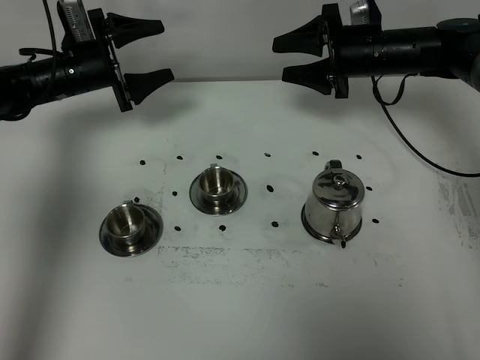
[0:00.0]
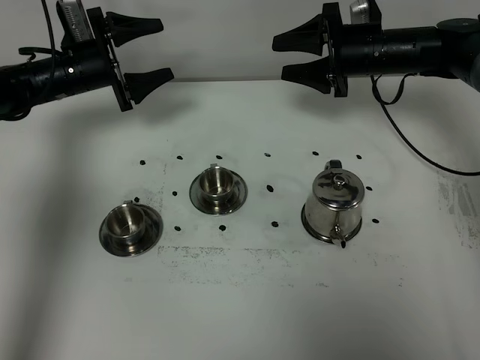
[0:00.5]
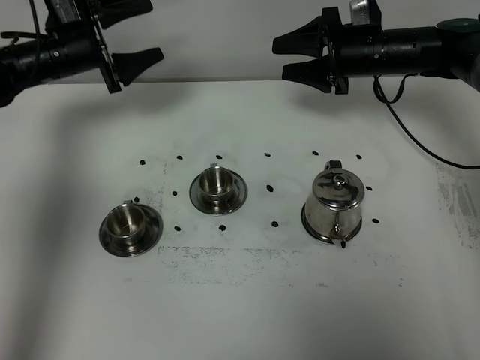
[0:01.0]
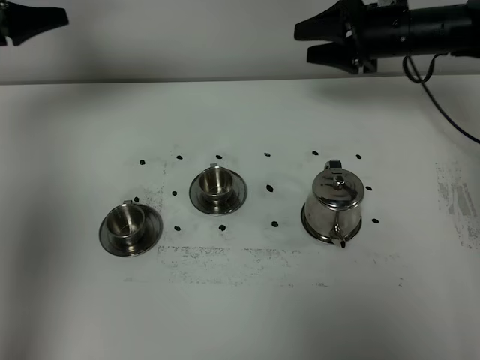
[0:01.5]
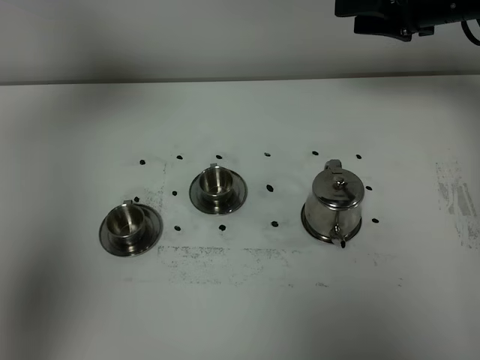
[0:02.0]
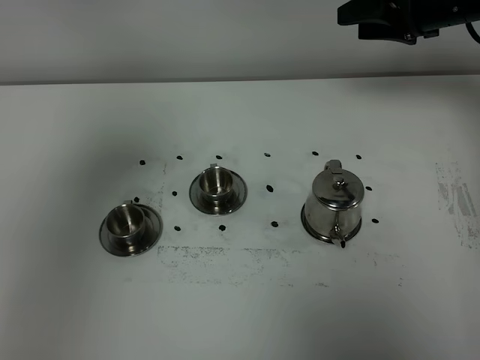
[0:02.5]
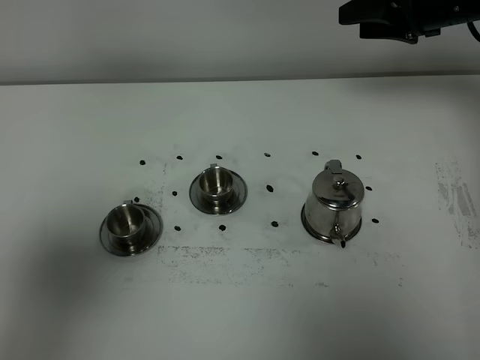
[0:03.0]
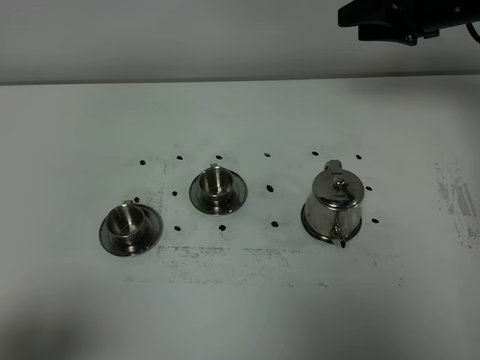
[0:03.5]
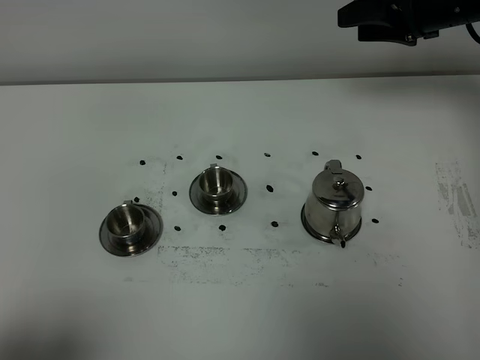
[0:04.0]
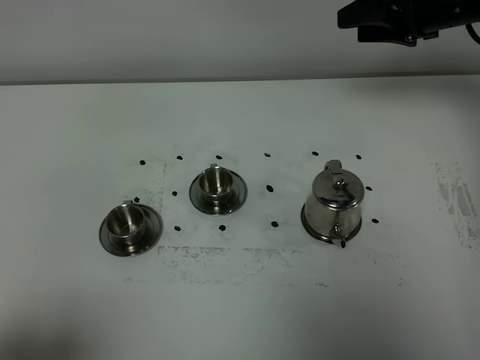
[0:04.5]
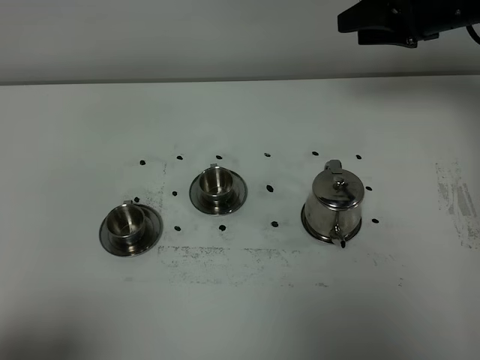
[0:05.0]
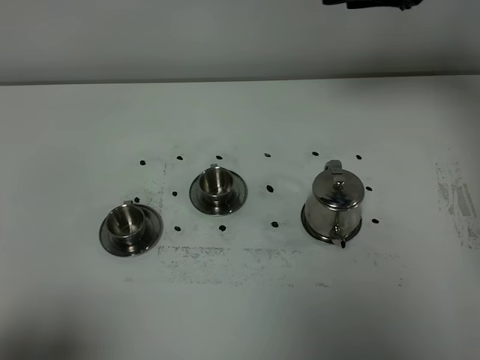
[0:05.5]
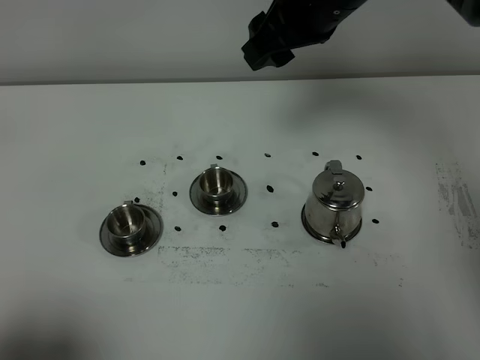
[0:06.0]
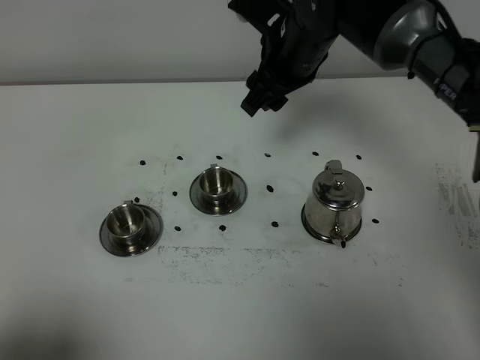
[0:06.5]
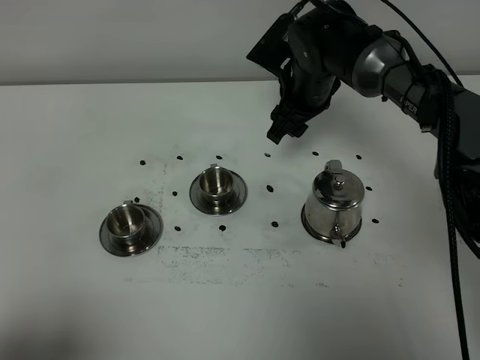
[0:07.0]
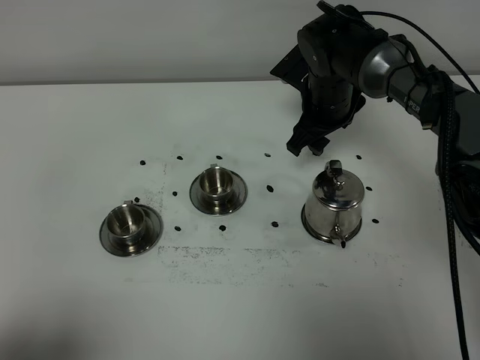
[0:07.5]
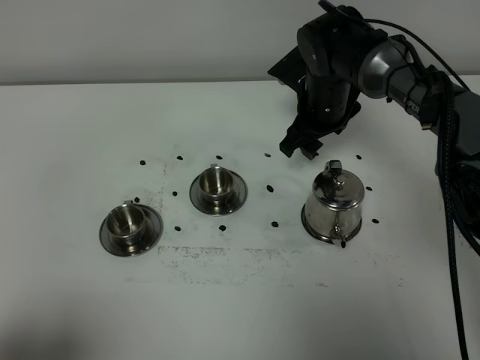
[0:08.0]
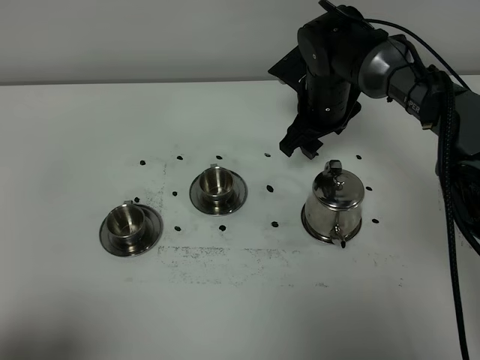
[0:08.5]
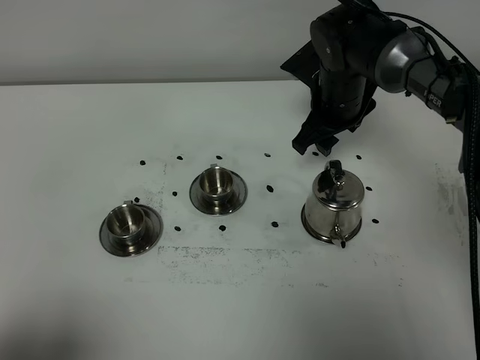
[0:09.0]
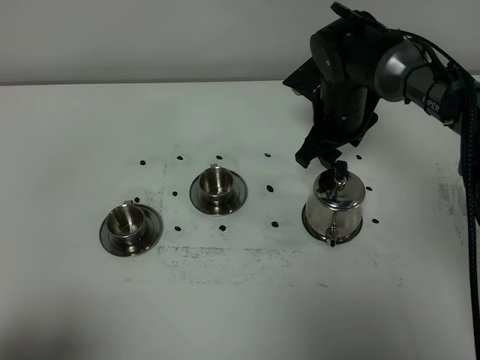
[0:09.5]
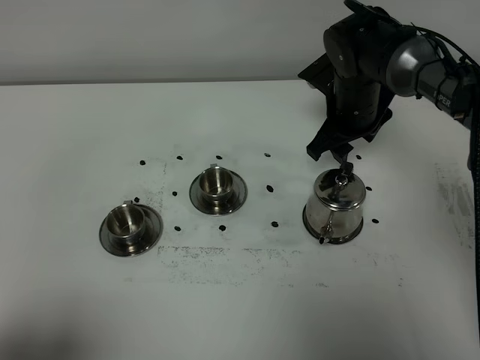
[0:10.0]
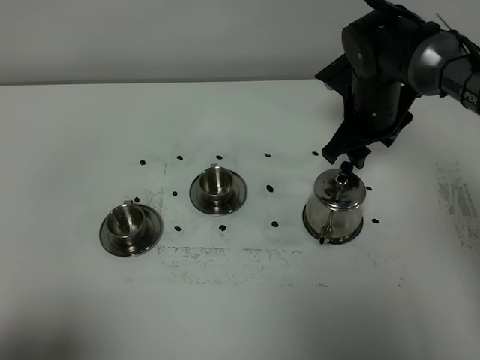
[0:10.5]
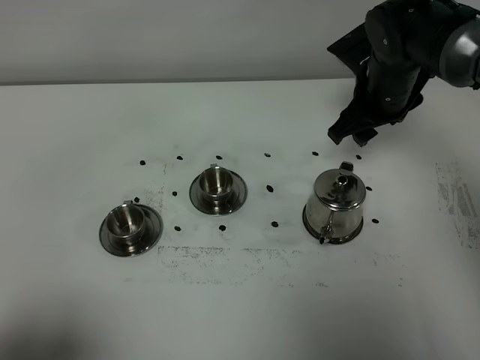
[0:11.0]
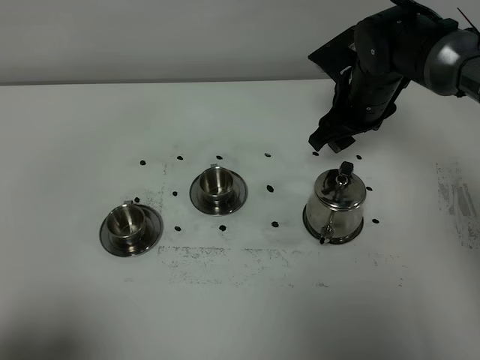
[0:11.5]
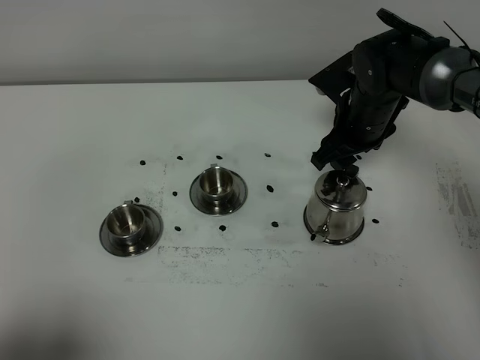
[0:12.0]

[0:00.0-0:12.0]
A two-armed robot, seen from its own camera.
Task of the whole recording: grasp the stainless steel teapot and pour the tea into the two stainless steel teacups one by one, put the stainless steel teapot back in its original place.
0:00.0 to 0:02.0: The right gripper travels upward and to the right by some 10 cm. Meanwhile the left gripper is displaced upward and backward by roughly 35 cm.
0:02.0 to 0:04.0: The left gripper moves backward and downward, about 40 cm.
0:04.0 to 0:06.0: The right gripper is displaced to the left and backward by about 20 cm.
0:06.0 to 0:08.0: The right gripper shifts roughly 20 cm downward.
0:08.0 to 0:10.0: The grippers make only small movements.
0:10.0 to 0:12.0: There are only small adjustments of the grippers.

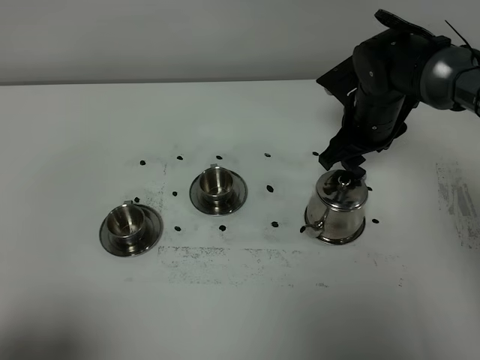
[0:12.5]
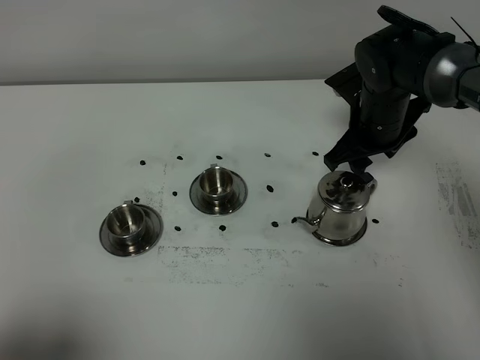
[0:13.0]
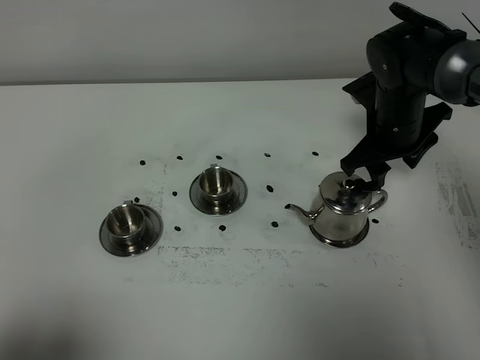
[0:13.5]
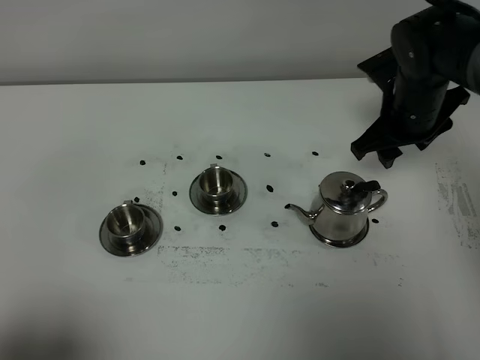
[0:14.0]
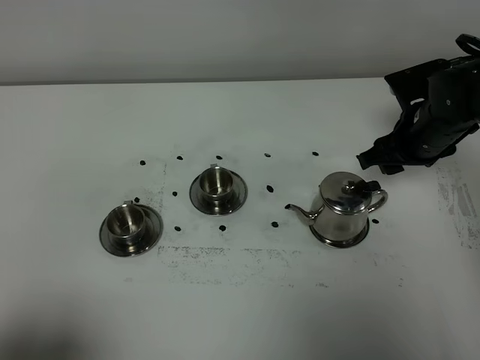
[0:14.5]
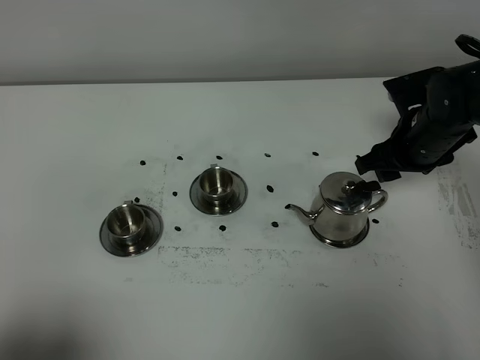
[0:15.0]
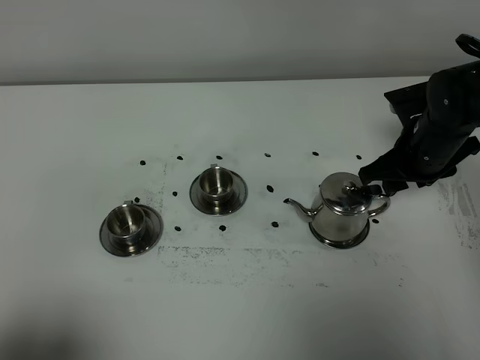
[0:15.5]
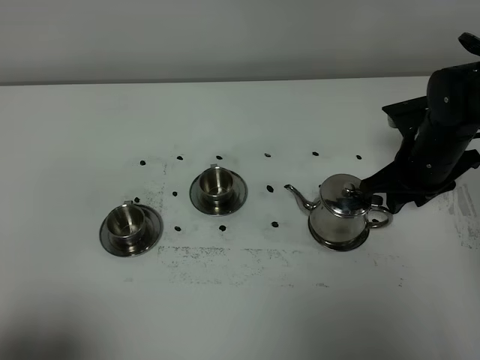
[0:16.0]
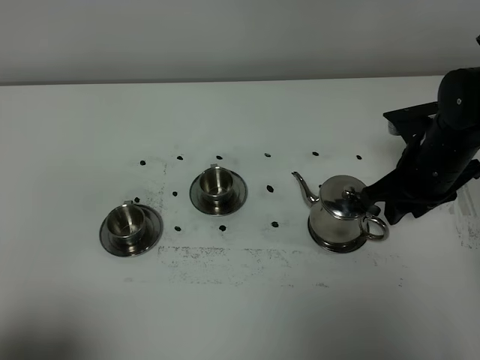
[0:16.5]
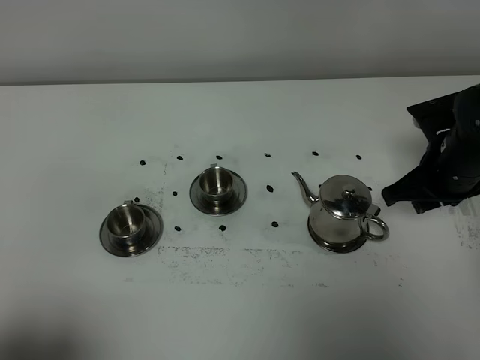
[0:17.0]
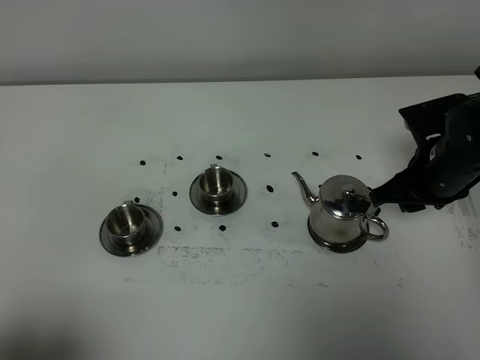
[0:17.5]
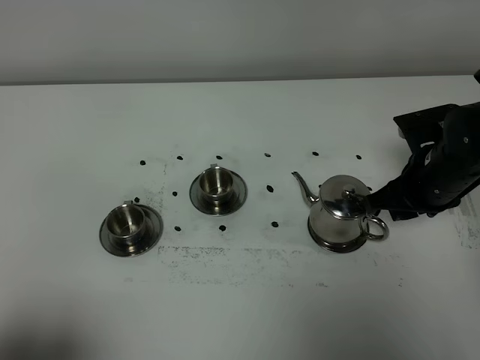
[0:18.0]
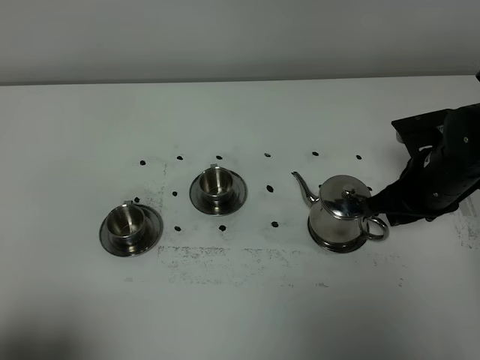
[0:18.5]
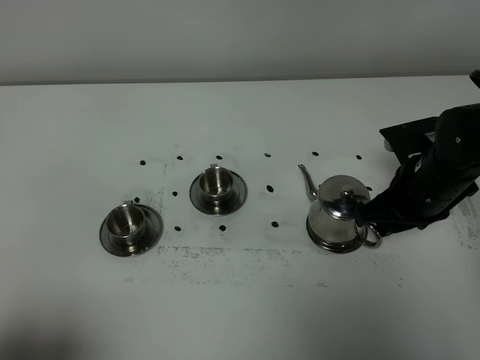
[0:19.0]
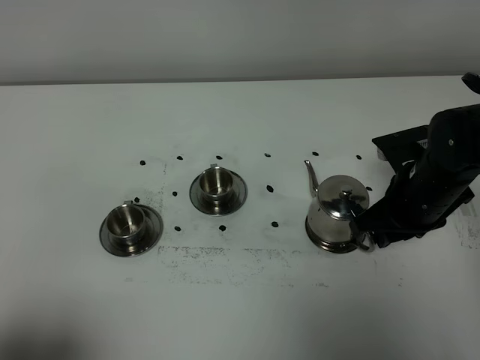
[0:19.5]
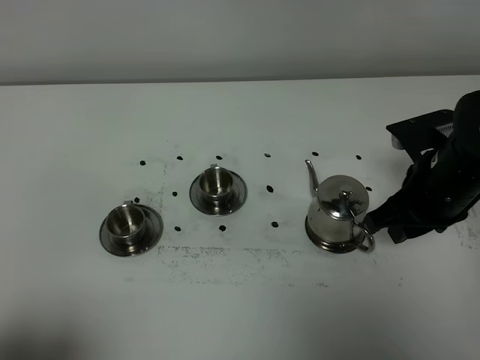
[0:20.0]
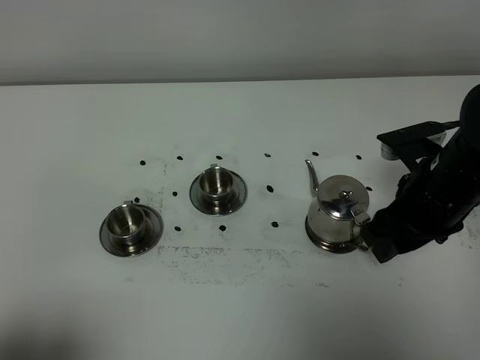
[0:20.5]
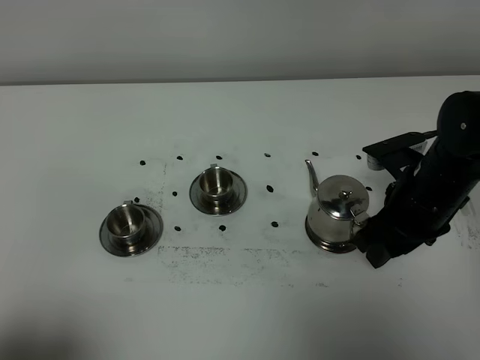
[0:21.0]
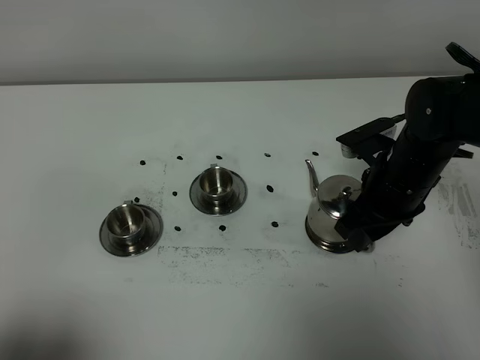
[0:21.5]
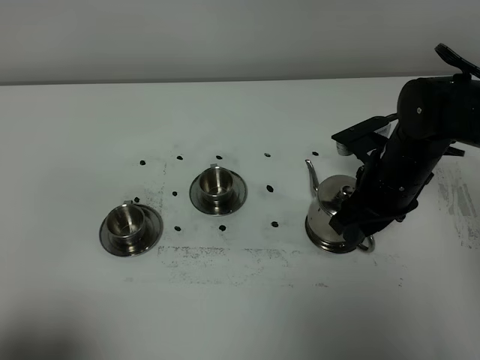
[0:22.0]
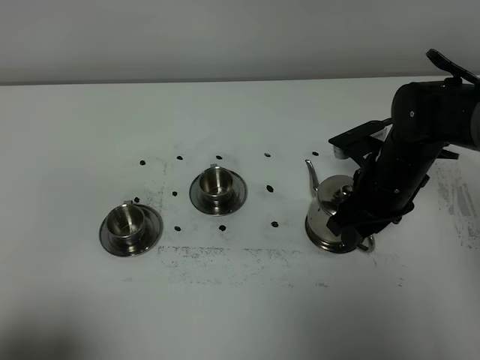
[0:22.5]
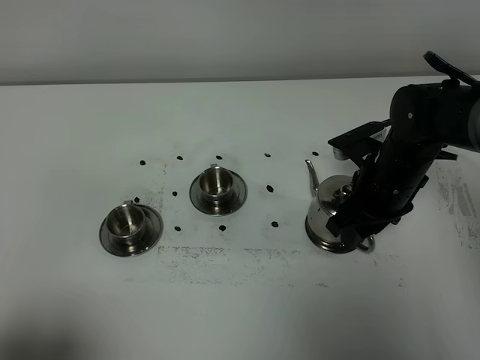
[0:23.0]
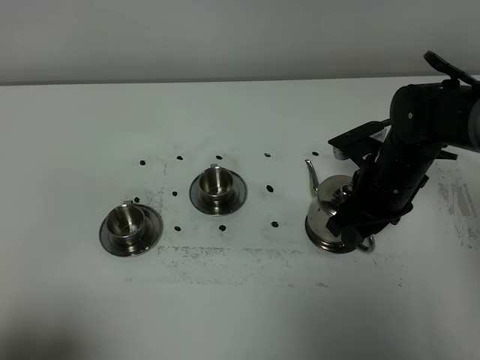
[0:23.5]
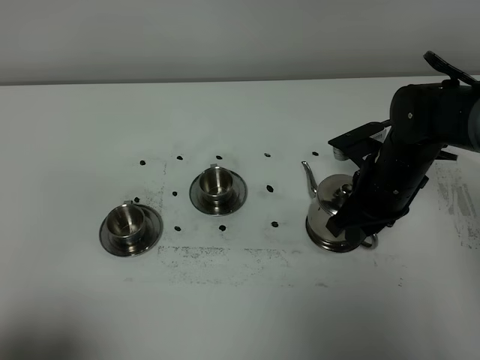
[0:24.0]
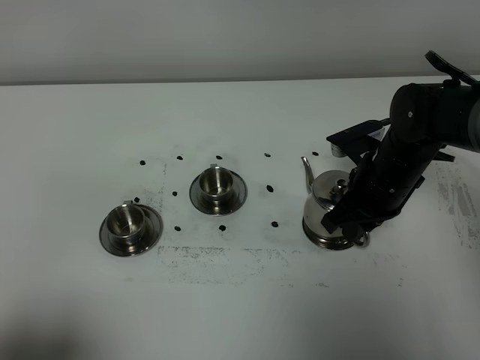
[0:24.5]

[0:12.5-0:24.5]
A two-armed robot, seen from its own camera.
Task of the whole recording: grasp the stainless steel teapot and pour the tea into the two stainless steel teacups one by one, put the stainless steel teapot back in its original place.
0:12.5 to 0:14.5: The right gripper travels to the right by approximately 5 cm.
0:14.5 to 0:16.5: The right gripper heads backward, covering roughly 5 cm, and closes up.
0:16.5 to 0:18.5: There are only small adjustments of the grippers.
0:18.5 to 0:20.5: The right gripper is displaced upward by about 5 cm.
0:20.5 to 0:22.5: The right gripper moves forward and downward, some 10 cm.
0:22.5 to 0:24.5: The right gripper closes.

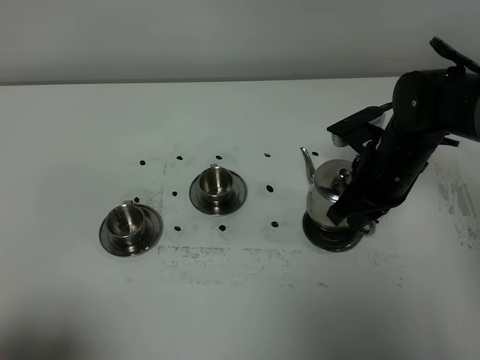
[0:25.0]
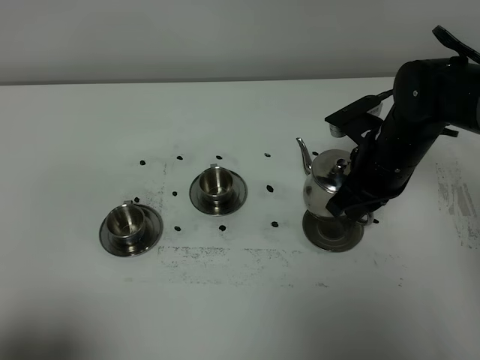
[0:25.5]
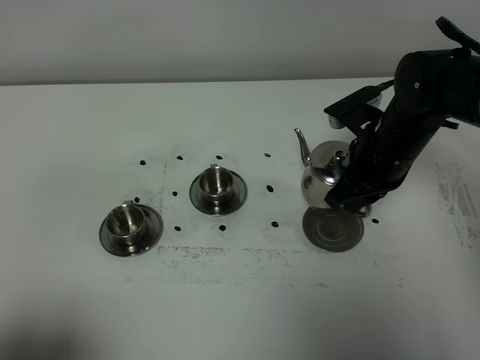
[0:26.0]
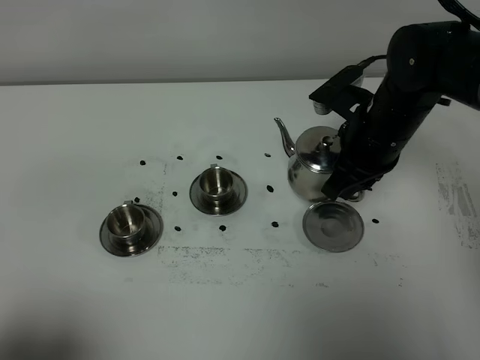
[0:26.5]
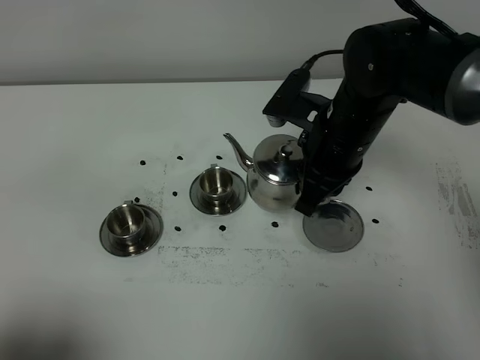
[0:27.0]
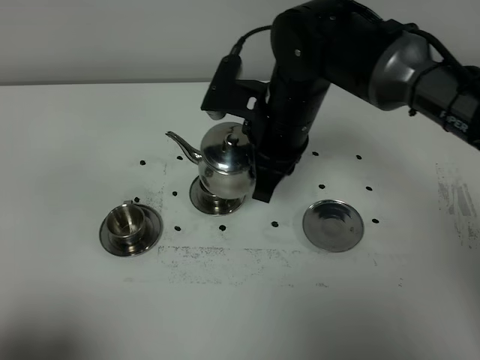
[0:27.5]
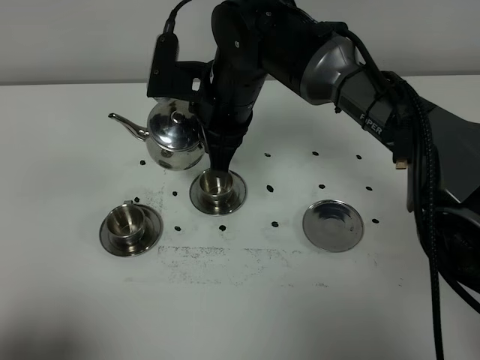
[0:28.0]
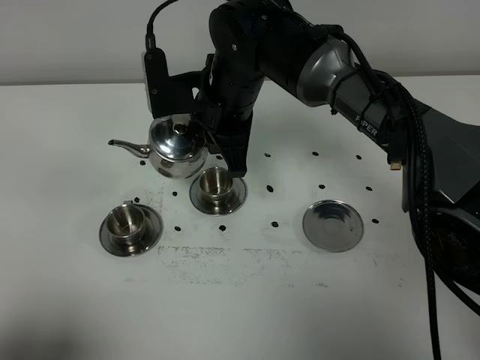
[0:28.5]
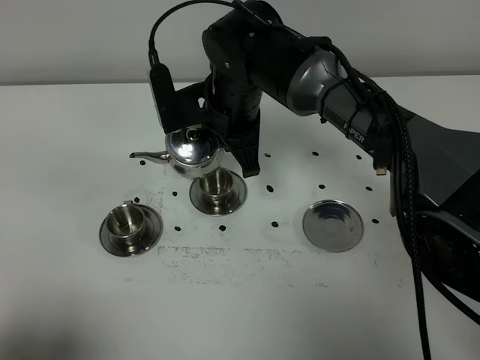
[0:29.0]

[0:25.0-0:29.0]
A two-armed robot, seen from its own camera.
Task of the whole recording: grasp the stainless steel teapot and pour the tea into the two stainless steel teacups one by one, put the stainless steel teapot back in its original place.
0:25.0 to 0:27.0: The right gripper moves to the left and upward, about 10 cm.
0:27.0 to 0:29.0: The right gripper heads to the left and forward, covering about 15 cm.
